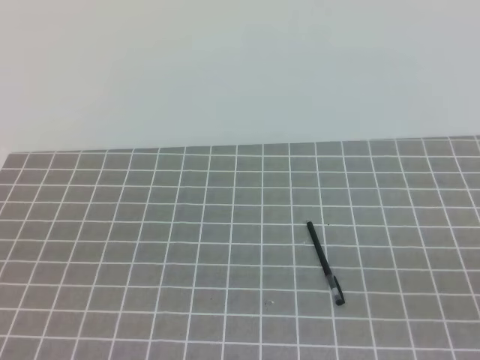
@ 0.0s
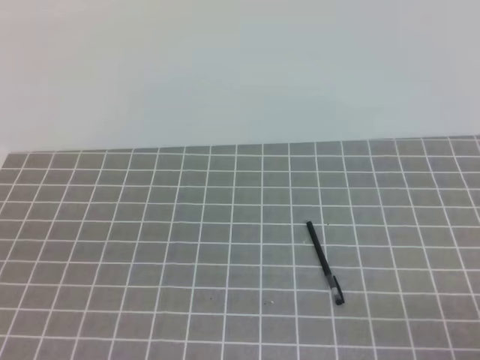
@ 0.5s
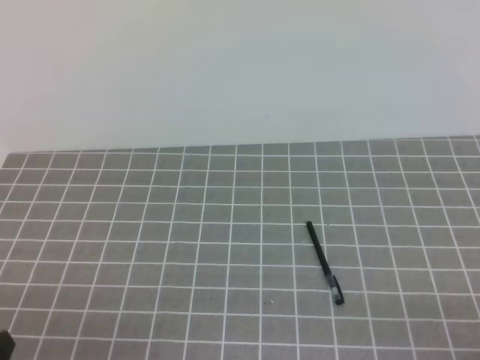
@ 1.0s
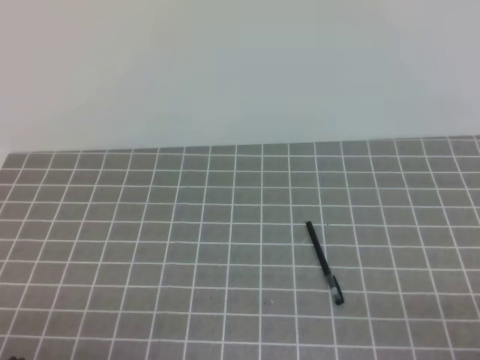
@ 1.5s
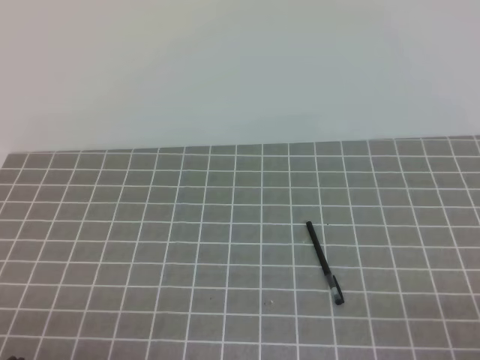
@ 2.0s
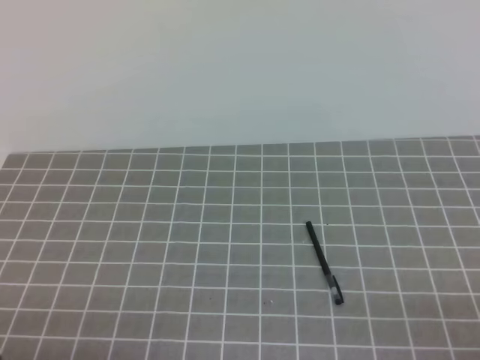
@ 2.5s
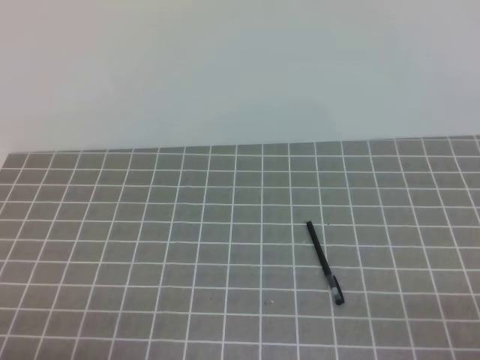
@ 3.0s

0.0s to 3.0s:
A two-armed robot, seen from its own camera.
Task of the whole recording: on the grey tablecloth, hold the pen cap in one hand and the pen in the other, then cover the pen cap.
Step, 0.0s to 3.0s: Put the cap on the pen.
0.0s to 1.5s: The right gripper moves downward, some 10 cm; the left gripper moves downward, approximately 15 cm.
